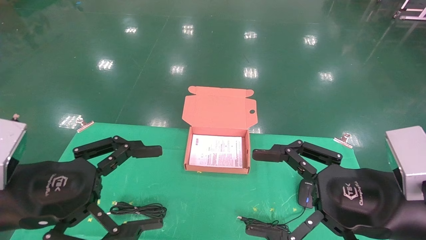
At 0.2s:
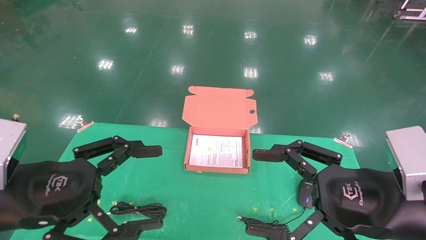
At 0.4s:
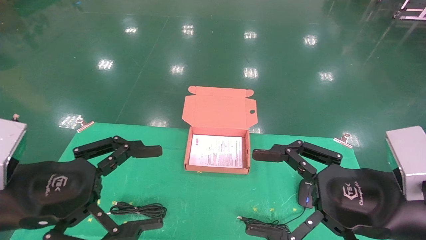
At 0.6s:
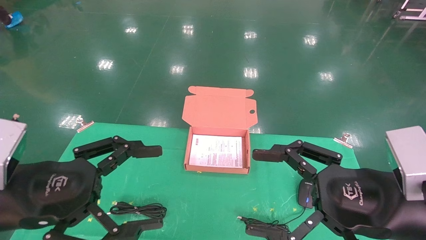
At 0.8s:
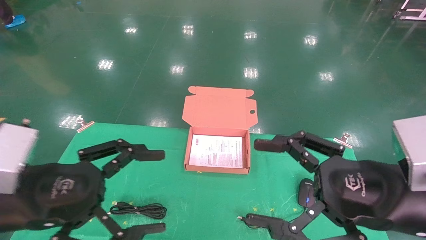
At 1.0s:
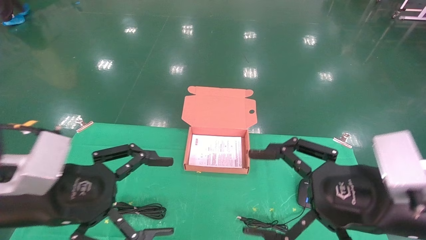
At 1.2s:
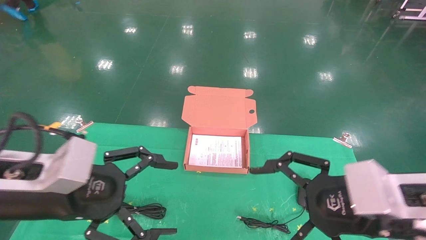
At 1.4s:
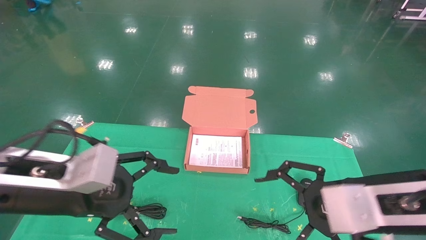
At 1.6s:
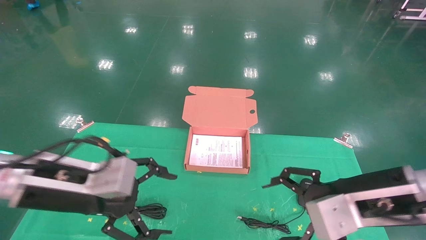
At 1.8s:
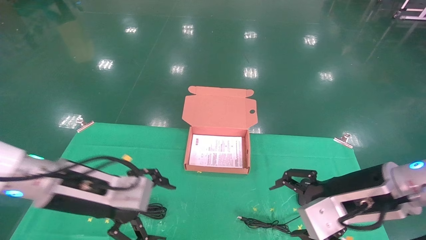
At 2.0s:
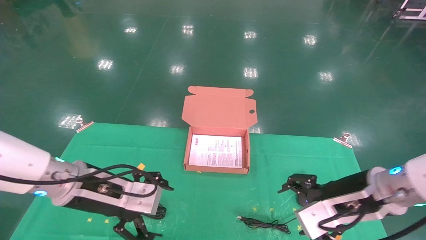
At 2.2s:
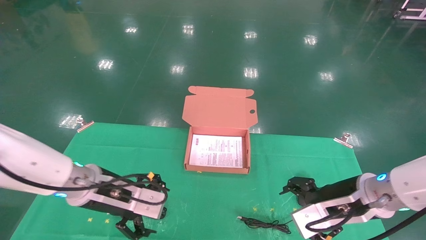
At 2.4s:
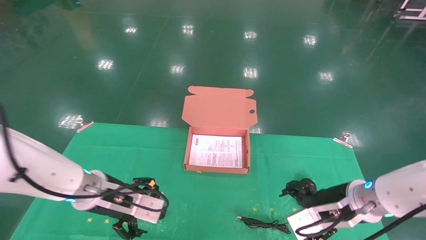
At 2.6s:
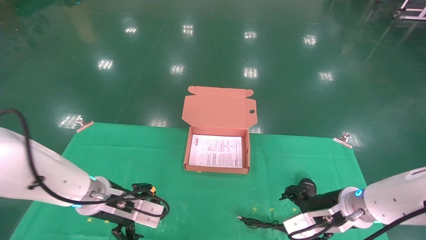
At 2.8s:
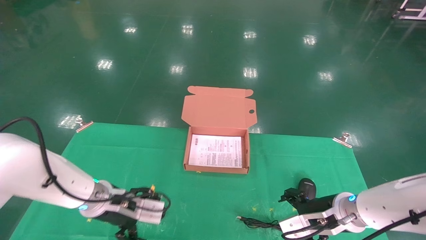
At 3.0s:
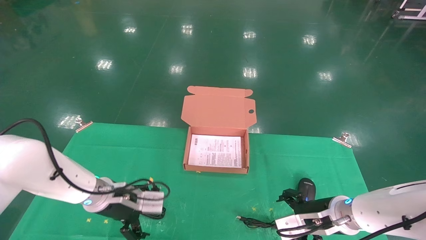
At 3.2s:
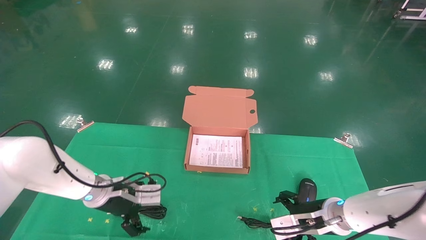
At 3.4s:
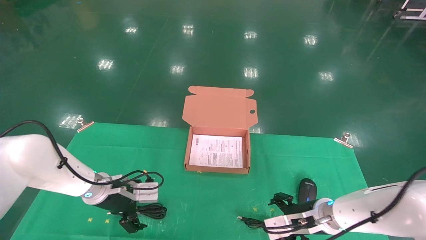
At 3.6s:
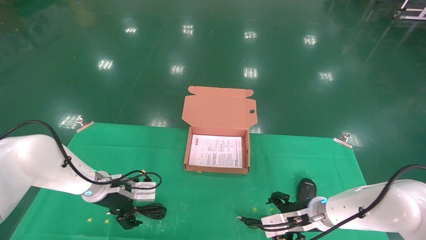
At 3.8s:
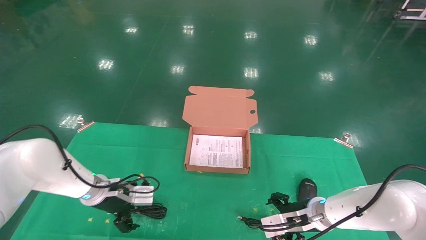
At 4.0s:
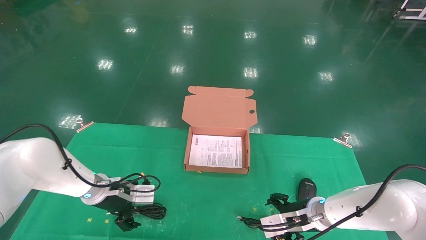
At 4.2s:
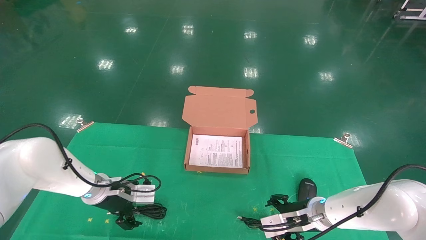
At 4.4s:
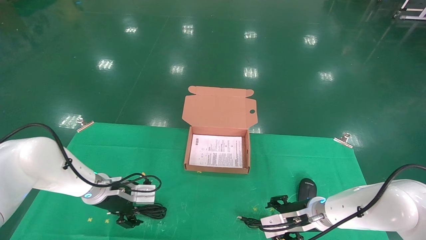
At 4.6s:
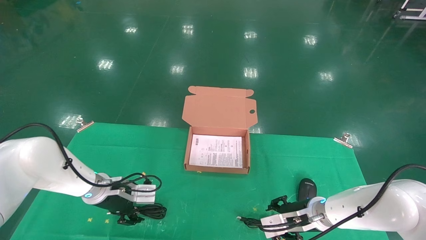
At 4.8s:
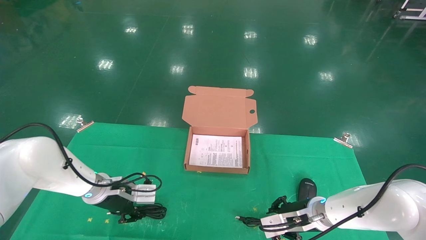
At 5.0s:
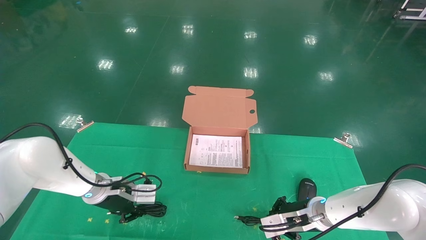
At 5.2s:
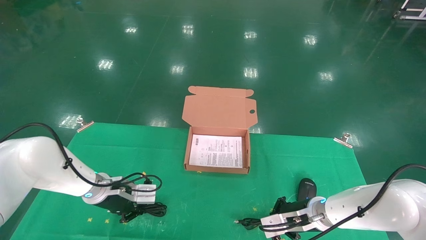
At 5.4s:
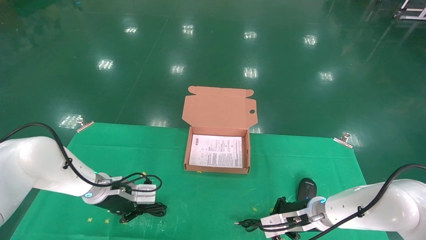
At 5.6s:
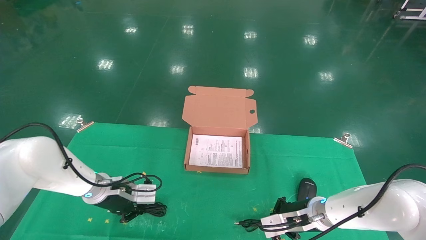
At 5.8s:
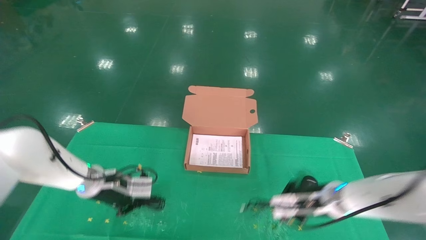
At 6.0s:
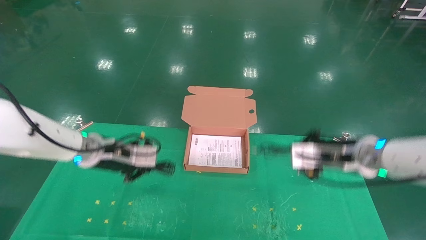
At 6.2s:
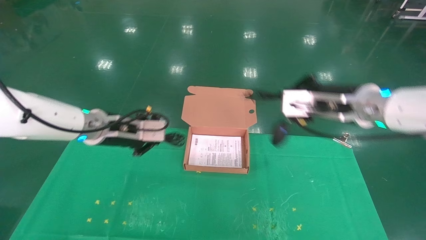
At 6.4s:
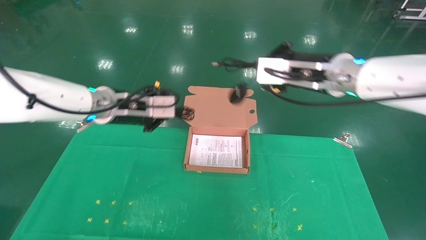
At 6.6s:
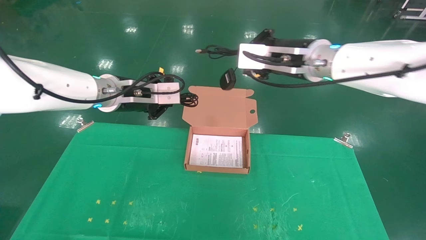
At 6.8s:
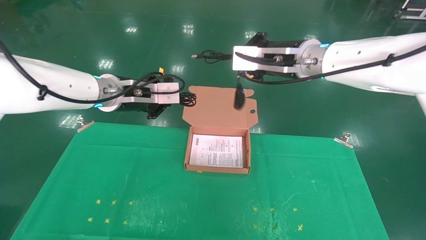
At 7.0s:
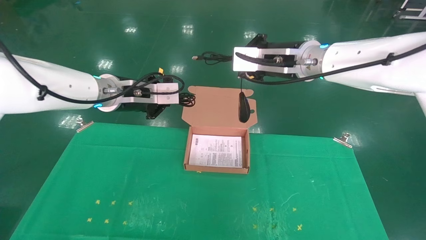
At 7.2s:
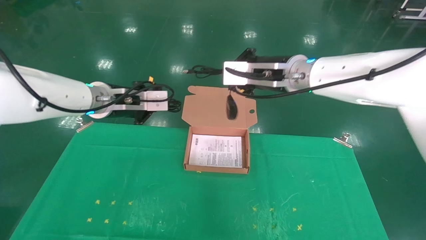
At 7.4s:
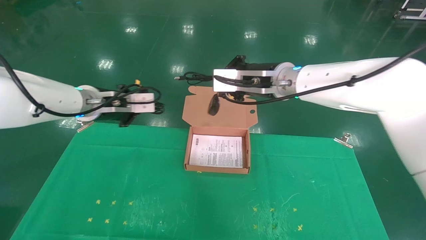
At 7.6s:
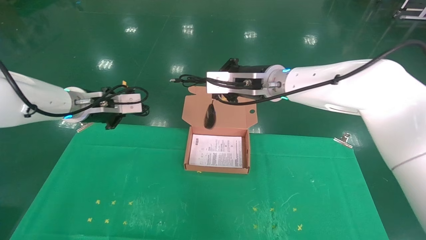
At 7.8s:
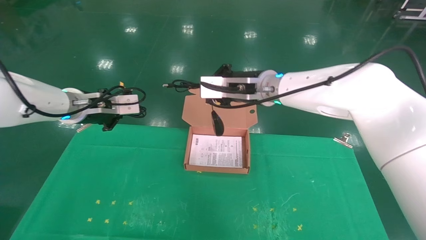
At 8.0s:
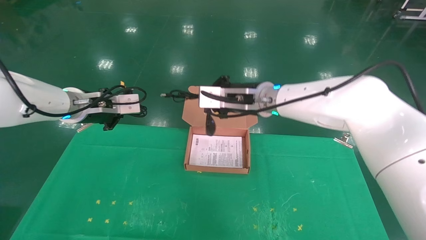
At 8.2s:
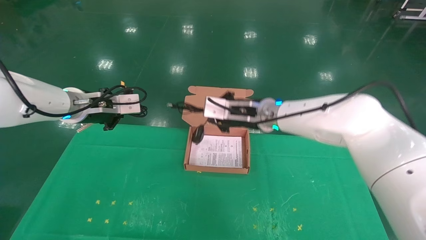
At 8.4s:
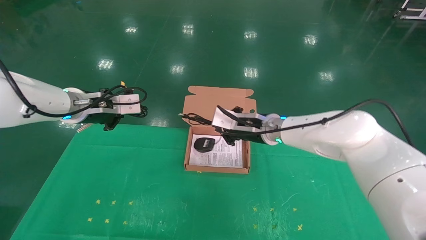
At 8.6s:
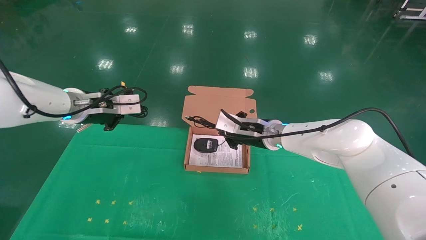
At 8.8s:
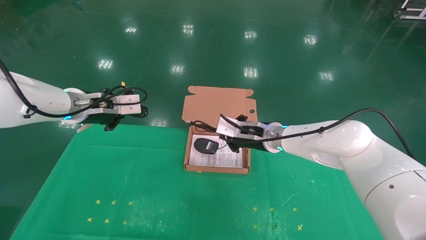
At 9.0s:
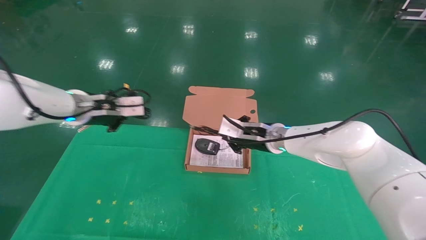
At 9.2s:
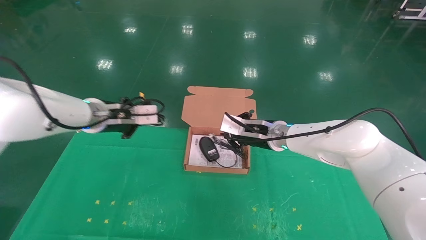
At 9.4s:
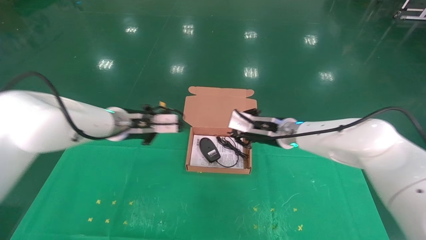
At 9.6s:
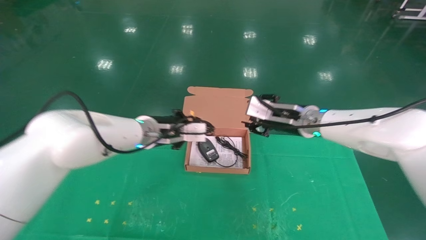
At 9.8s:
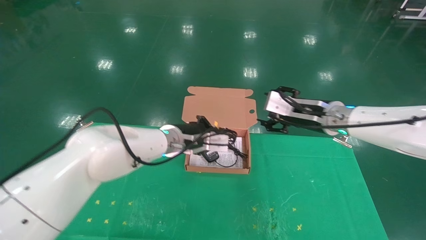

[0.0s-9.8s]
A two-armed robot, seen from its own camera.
Task of the whole recording: grasp data cable left put into box grasp mouse right put into box.
Step, 1.0s to 5.8s: Grab and pick up both the mouse and power cord from the accessory packaging area at the same time.
0.0s to 1.4s: The left gripper shifts by about 5 cm.
1.4s to 2.8s: The left gripper moves forward and downward, some 20 cm. Meanwhile the right gripper moves downward and forward, about 20 cm.
2.8s to 4.2s: The left gripper moves forward, some 5 cm, while the right gripper shifts about 5 cm downward and forward.
4.2s to 5.6s: The left gripper closes, while the right gripper closes.
5.6s to 7.0s: Both grippers travel together upward, roughly 25 cm.
7.0s to 8.4s: The right gripper moves downward and forward, approximately 15 cm, while the left gripper is displaced to the left by roughly 5 cm.
8.4s to 9.8s: The right gripper travels to the right by about 10 cm, and opens its fingers; the left gripper travels to the right and downward by approximately 20 cm.

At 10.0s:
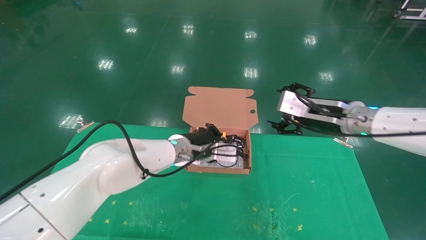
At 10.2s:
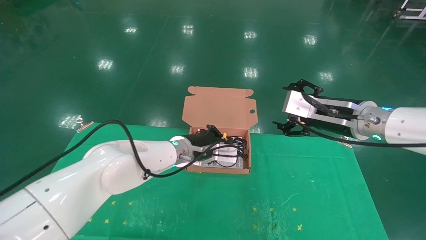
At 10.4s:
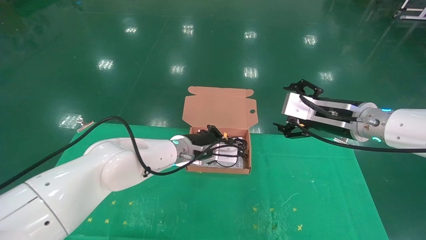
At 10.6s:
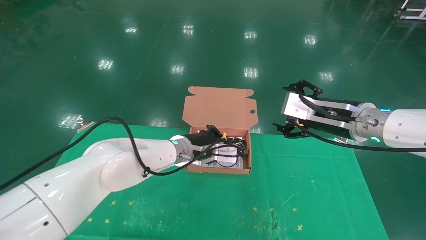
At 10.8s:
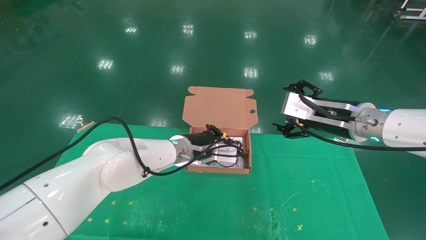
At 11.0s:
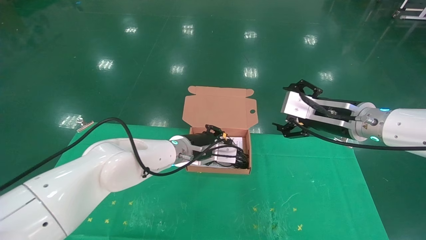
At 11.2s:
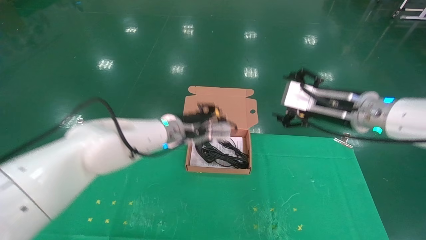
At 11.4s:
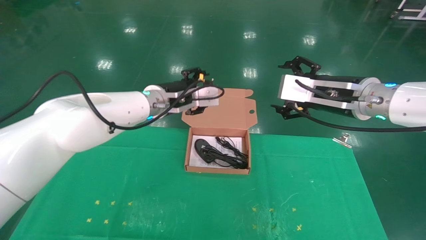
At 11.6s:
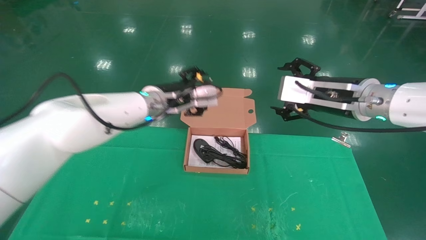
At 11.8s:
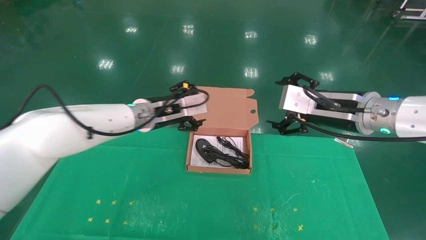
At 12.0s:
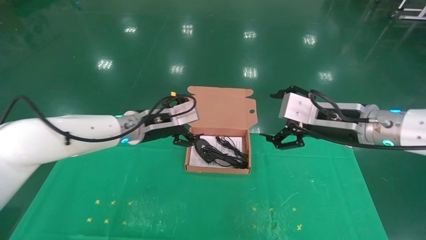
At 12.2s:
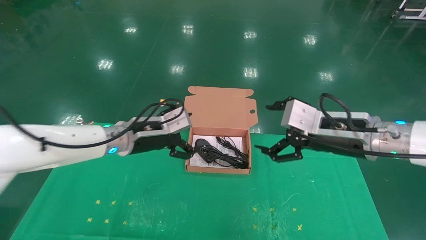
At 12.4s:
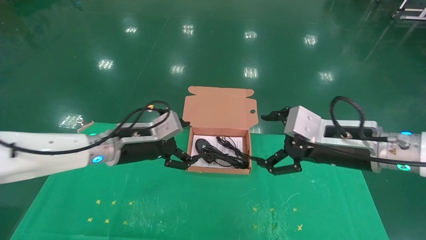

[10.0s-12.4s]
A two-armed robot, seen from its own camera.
Task of the whole recording: grasp data cable left put into box grasp mouse right put into box.
10.0s to 11.2s: The left gripper is displaced upward by about 5 cm, and opens up.
11.2s to 12.4s: The right gripper goes some 5 cm backward, while the left gripper goes some 10 cm to the left and backward, and opens up.
